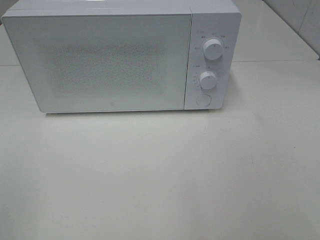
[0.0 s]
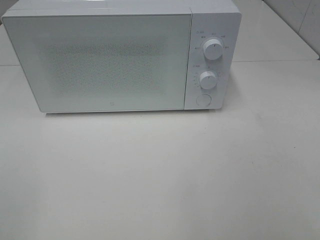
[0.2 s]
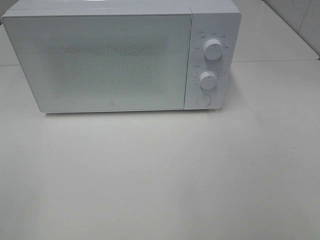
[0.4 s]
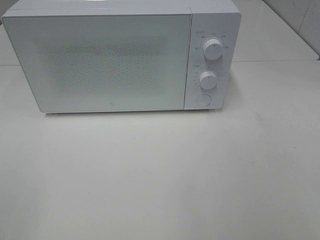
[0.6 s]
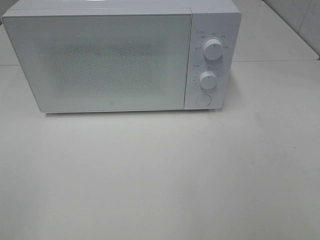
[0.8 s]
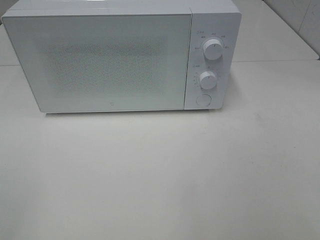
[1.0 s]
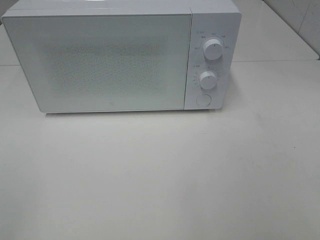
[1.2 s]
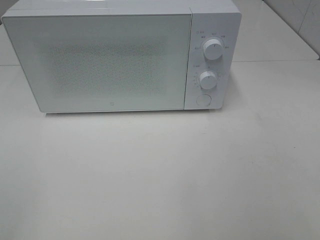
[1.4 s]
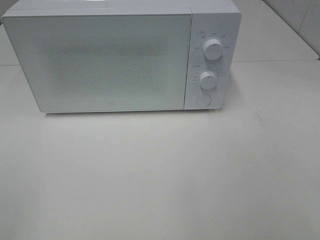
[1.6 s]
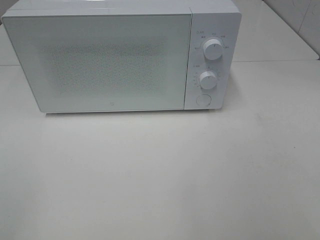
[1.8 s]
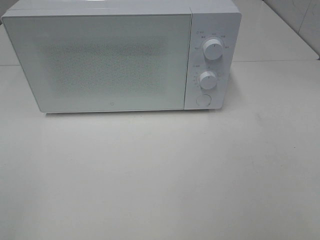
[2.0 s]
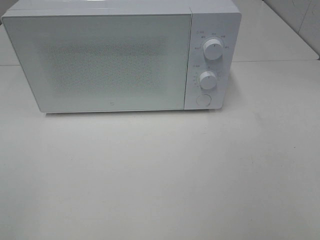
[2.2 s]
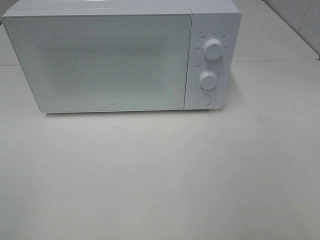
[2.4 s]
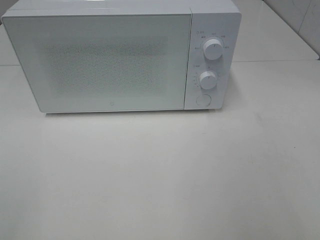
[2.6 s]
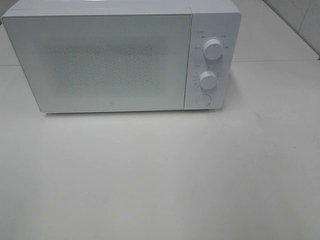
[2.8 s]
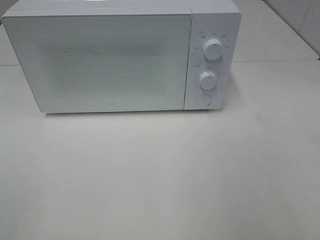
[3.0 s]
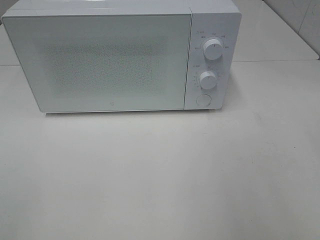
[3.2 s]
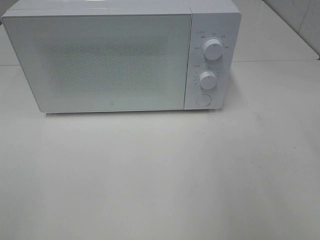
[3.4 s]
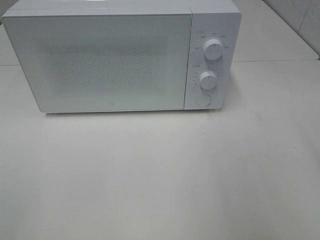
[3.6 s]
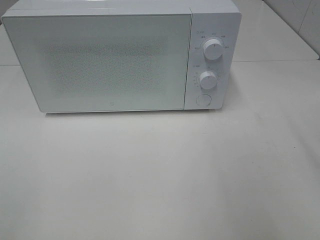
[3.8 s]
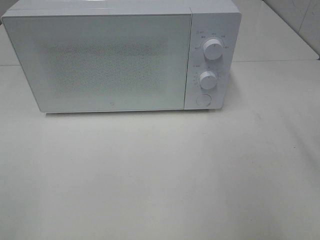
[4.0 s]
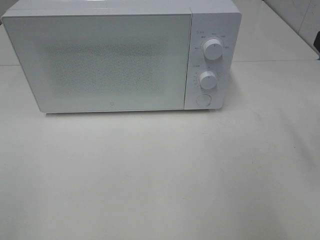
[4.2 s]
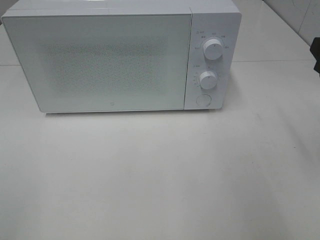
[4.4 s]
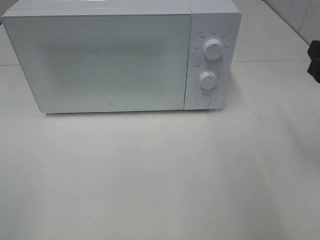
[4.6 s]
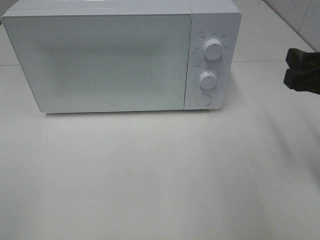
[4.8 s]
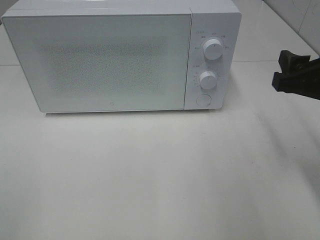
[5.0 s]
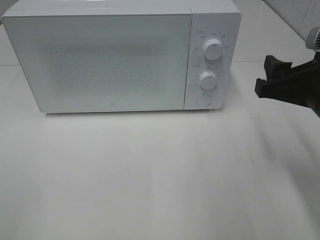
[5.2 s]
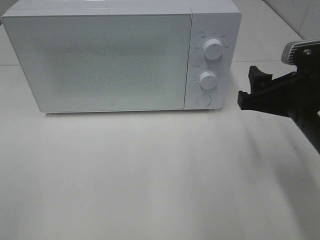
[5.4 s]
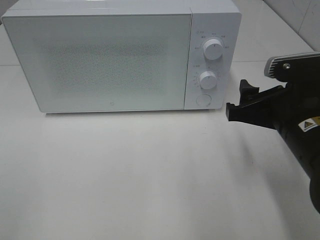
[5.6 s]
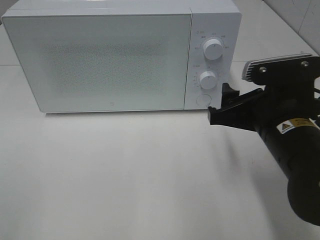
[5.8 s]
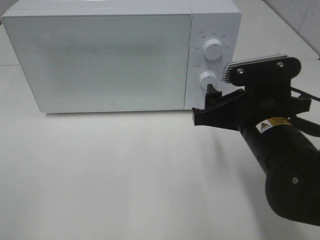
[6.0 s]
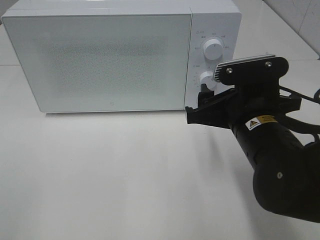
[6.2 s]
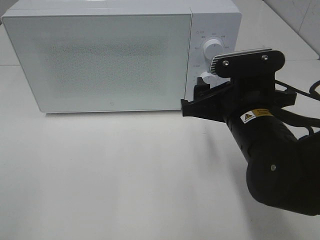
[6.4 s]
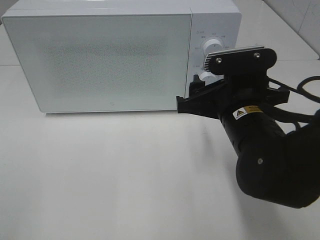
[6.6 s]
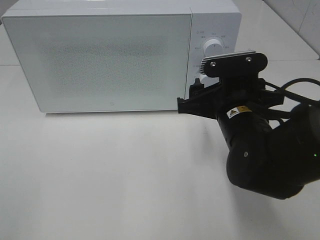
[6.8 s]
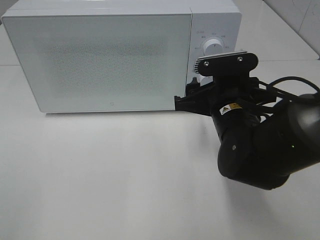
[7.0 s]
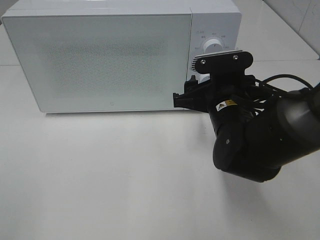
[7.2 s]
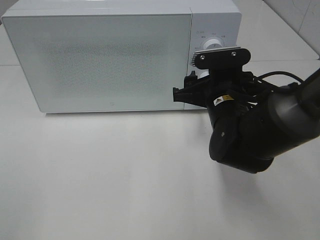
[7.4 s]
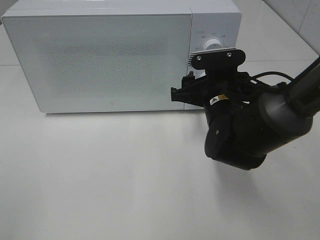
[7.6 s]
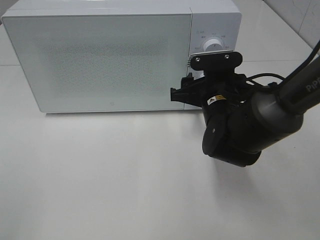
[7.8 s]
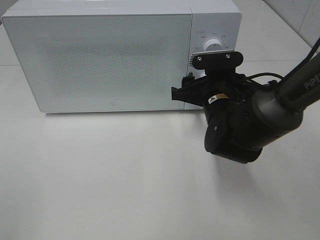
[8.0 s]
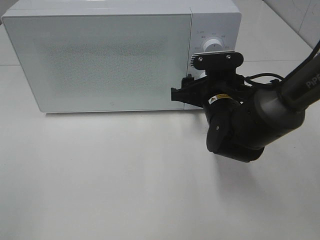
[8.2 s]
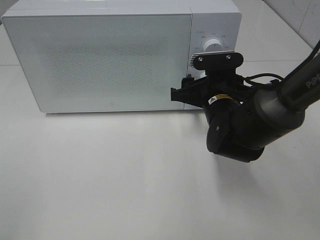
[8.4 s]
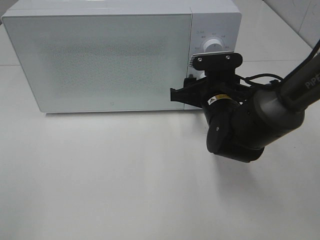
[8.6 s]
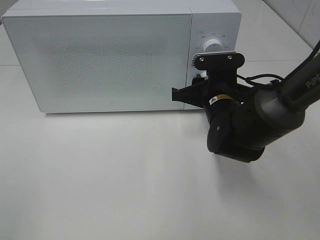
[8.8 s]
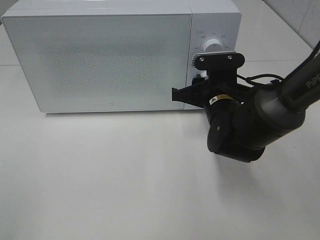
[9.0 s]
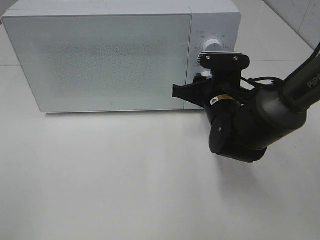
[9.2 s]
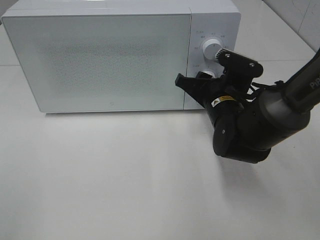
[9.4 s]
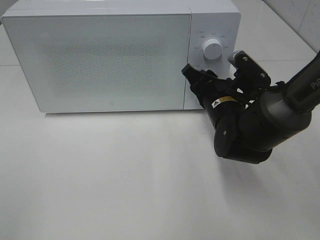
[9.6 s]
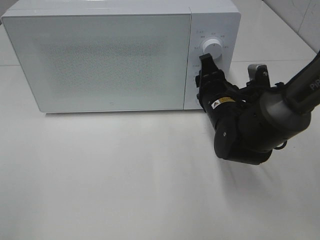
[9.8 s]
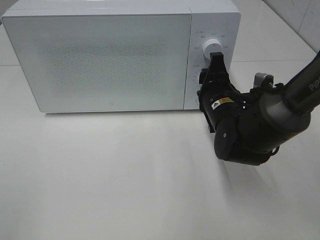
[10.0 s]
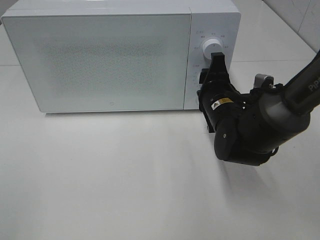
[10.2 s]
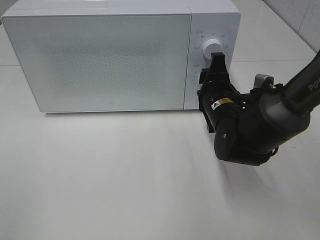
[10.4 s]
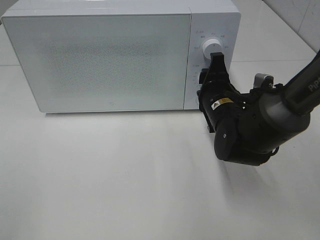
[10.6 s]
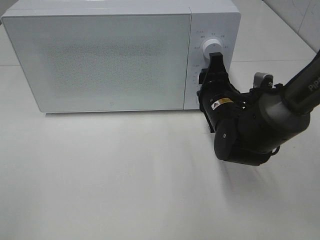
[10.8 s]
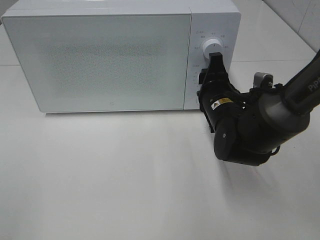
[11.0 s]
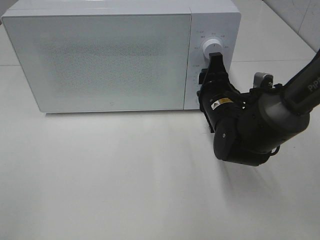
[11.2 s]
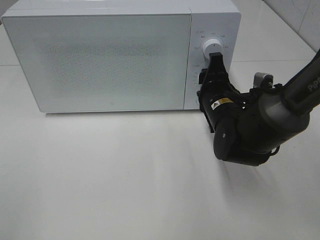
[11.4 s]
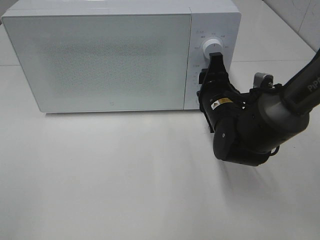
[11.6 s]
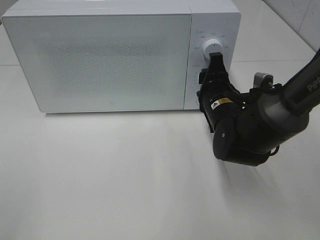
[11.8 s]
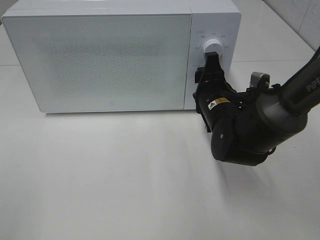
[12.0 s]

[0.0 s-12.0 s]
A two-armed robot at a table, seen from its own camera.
Task of the whole recording: Heat the burger.
4.4 to 6.0 s: The right gripper shifts about 15 cm to the left and downward.
6.0 to 7.6 s: The right gripper heads forward, covering some 10 cm.
7.6 to 9.0 s: The right gripper closes.
10.4 to 12.0 s: The two grippers keep their place.

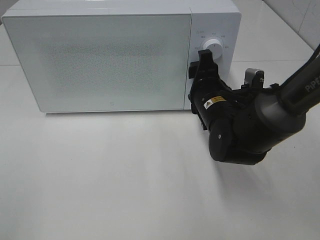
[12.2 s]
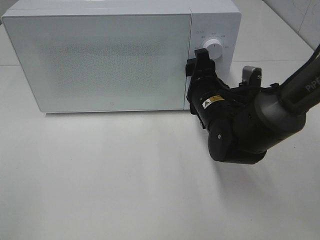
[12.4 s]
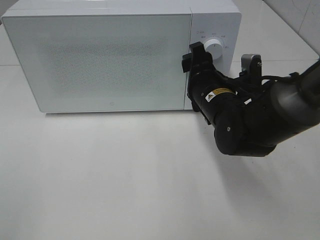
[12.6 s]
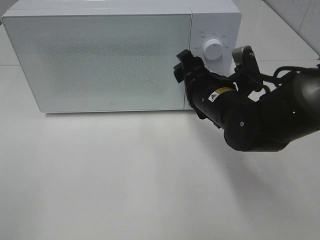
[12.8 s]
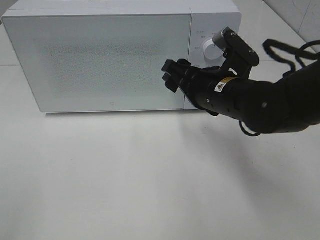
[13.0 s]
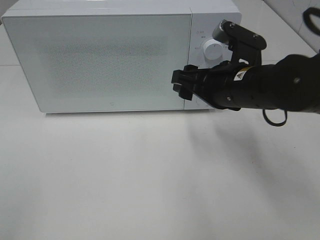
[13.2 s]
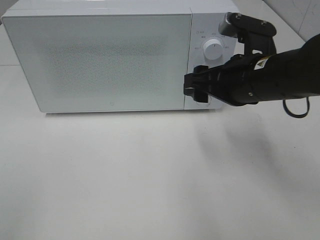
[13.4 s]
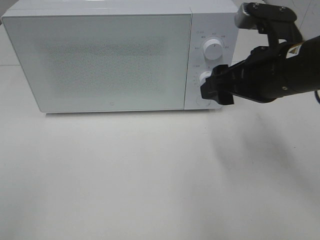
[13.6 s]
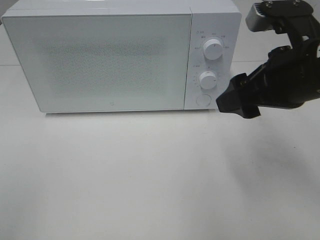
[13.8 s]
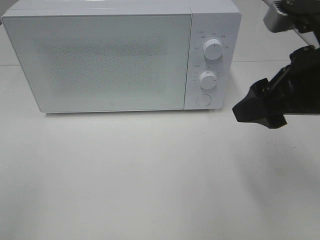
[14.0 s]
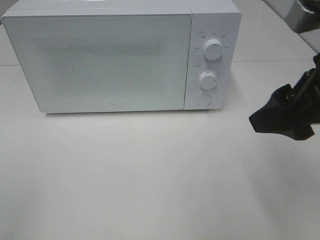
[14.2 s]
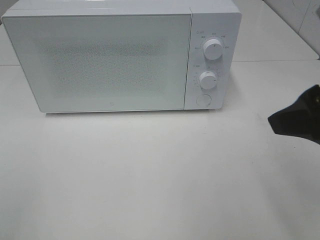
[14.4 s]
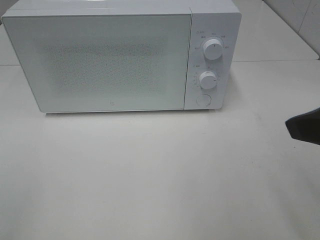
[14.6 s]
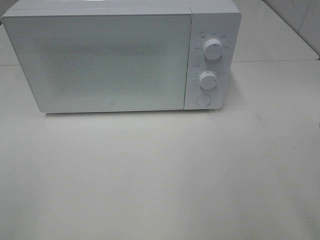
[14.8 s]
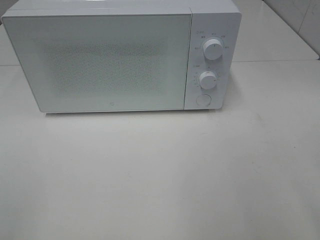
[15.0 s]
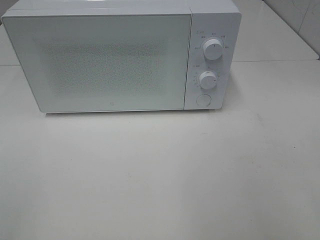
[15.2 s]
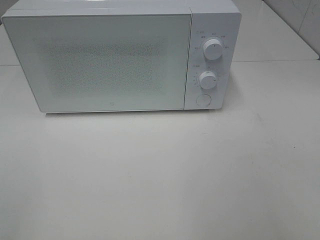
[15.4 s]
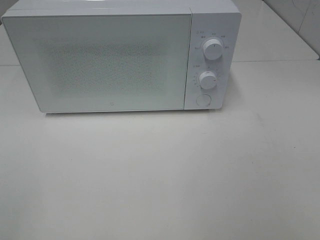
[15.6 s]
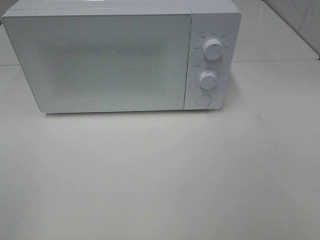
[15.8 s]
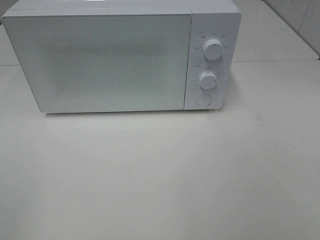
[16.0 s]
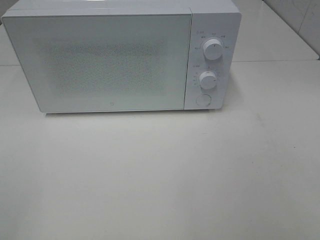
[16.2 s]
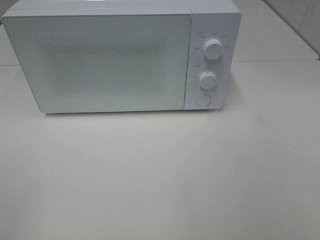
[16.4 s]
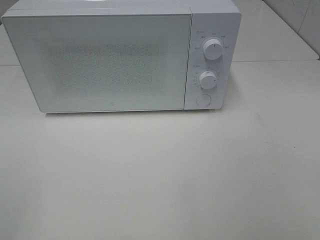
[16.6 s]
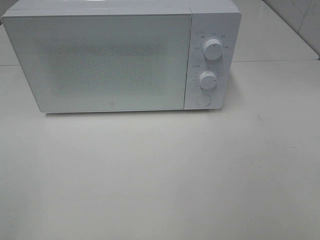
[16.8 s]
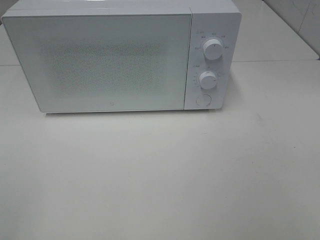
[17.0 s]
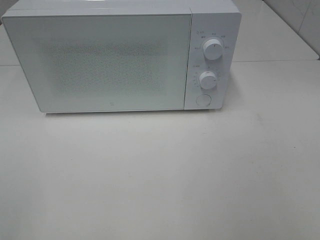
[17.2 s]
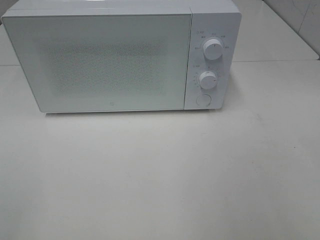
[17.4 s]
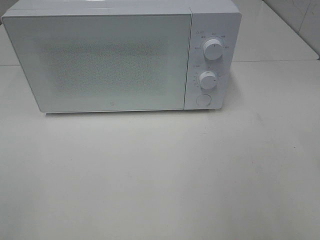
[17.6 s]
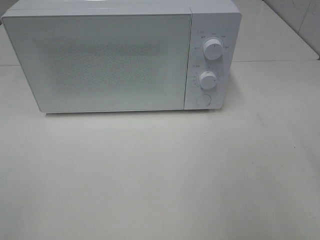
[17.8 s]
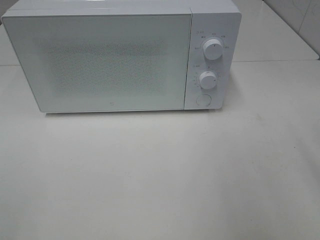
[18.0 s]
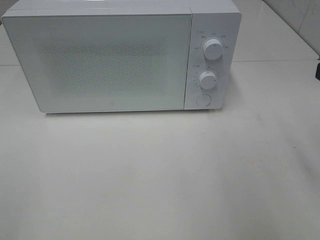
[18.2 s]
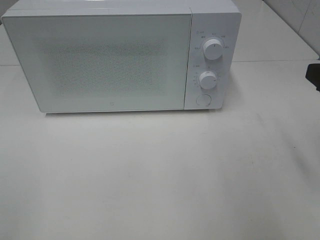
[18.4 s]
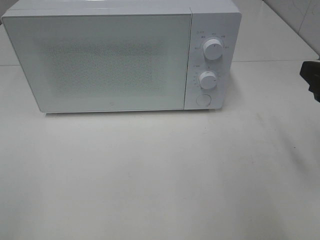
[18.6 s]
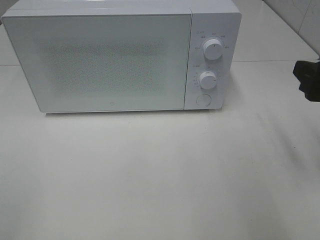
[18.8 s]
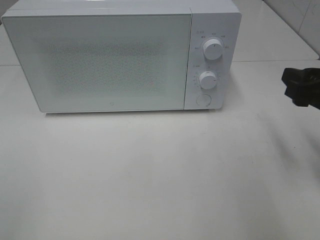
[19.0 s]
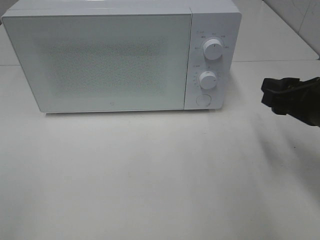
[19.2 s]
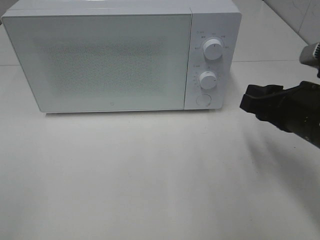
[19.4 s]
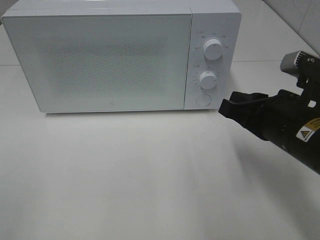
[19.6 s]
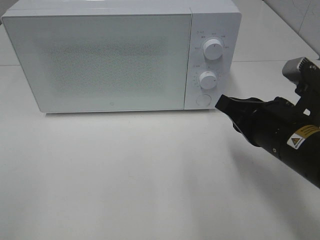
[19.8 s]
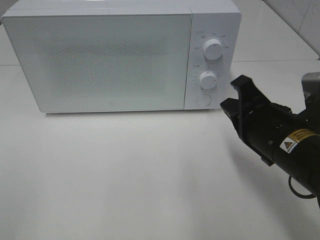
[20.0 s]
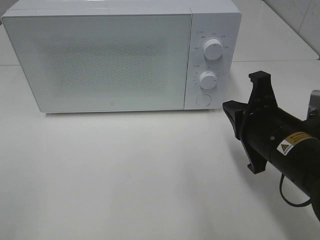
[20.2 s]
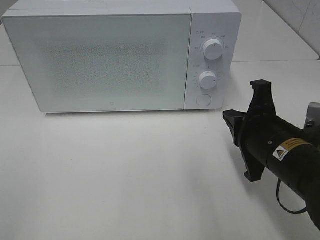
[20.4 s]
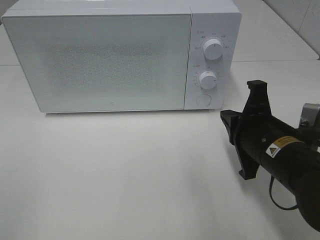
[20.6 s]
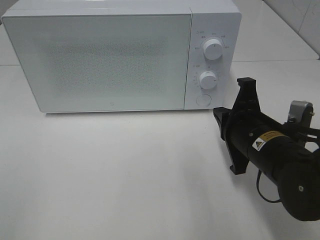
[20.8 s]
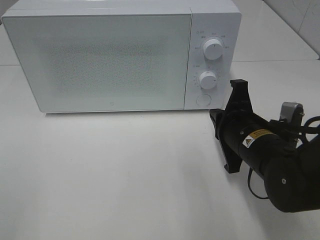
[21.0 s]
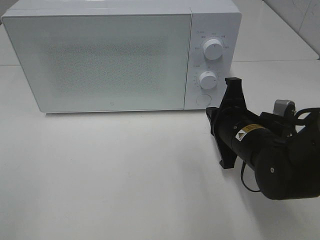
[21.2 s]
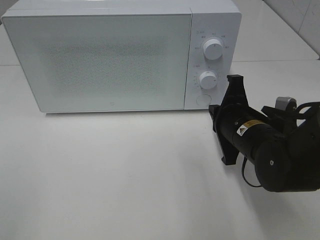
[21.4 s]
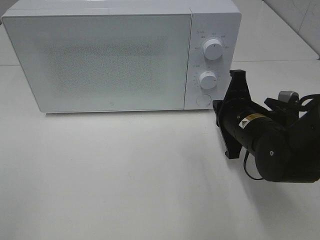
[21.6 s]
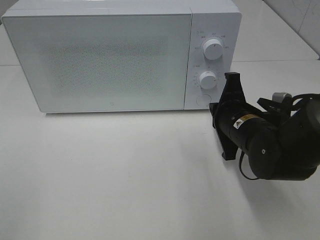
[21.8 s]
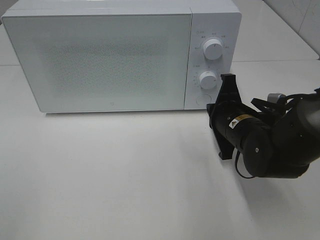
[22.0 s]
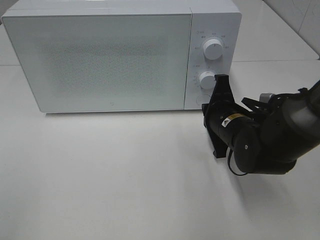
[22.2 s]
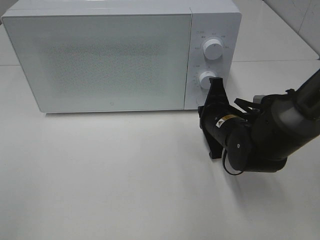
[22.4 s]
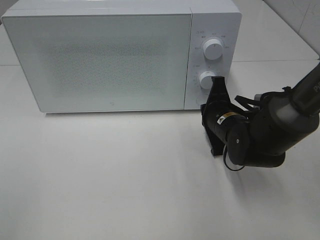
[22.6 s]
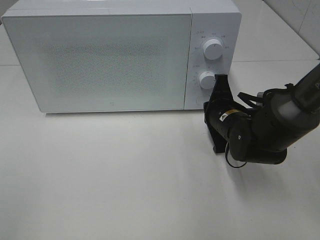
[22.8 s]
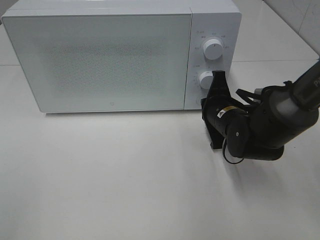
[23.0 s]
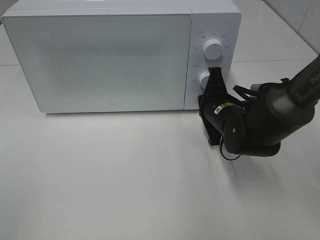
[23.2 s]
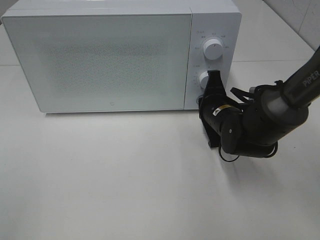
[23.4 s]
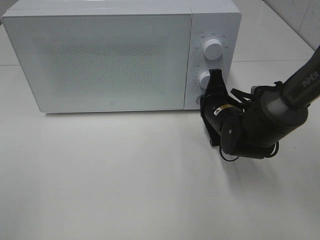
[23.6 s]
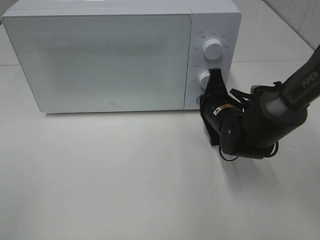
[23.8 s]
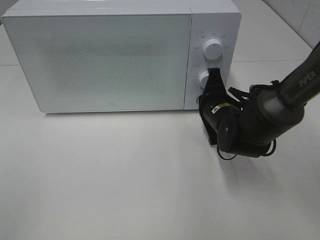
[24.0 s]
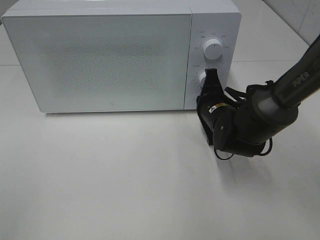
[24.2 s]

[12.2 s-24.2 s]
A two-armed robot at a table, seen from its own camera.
Task of the whole recording: Heat the burger.
12.2 to 13.8 s: The right gripper shifts some 20 cm upward, backward and to the right.
13.8 to 15.2 s: The right gripper goes approximately 20 cm backward and to the right.
18.2 to 19.8 s: The right gripper heads to the left and downward, covering about 15 cm, and closes up.
19.8 to 21.2 s: The right gripper travels forward and downward by approximately 5 cm.
21.2 to 22.6 s: The right gripper travels forward by roughly 5 cm.
22.6 to 24.2 s: The grippers move only a little.
